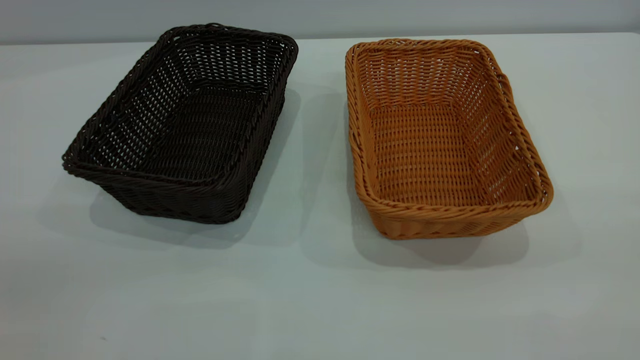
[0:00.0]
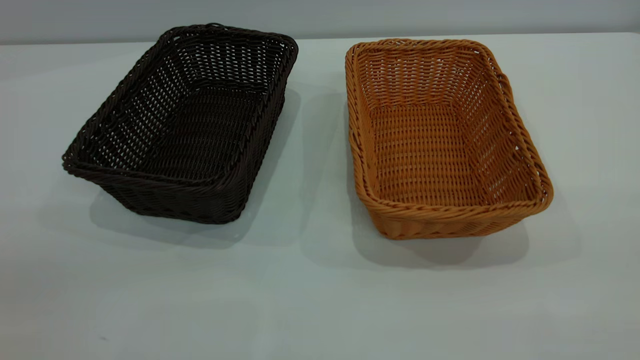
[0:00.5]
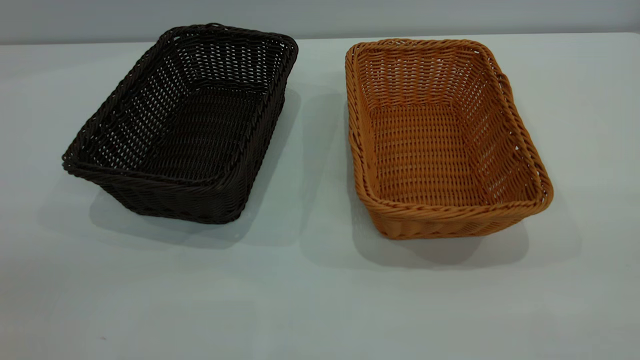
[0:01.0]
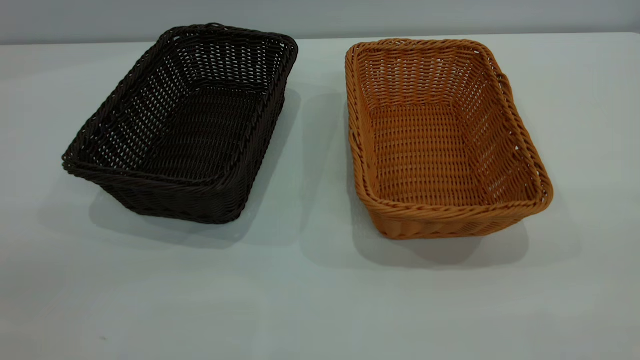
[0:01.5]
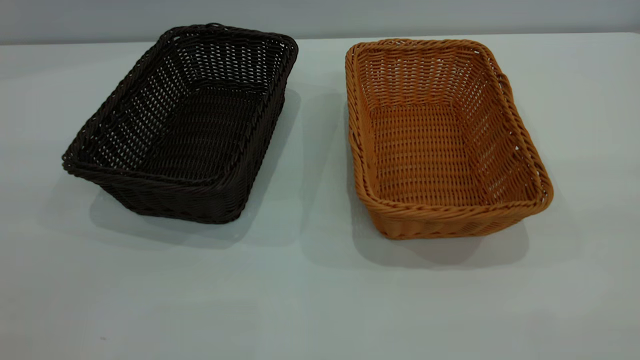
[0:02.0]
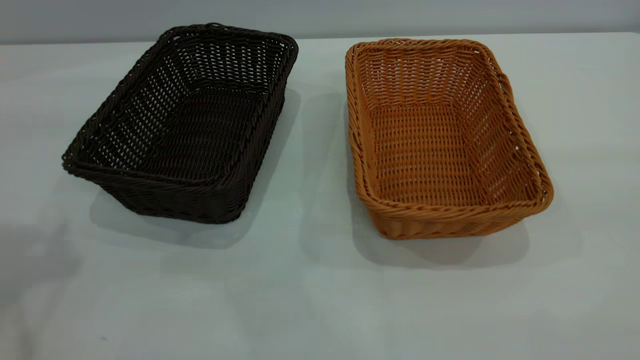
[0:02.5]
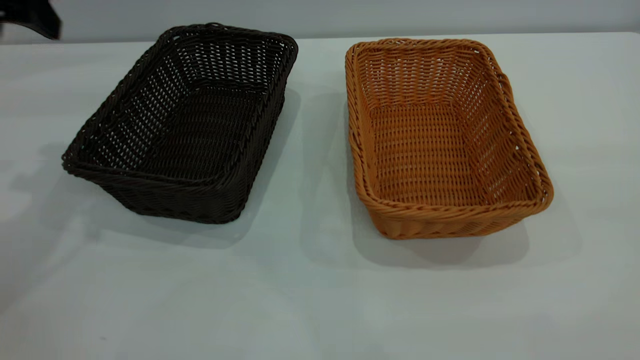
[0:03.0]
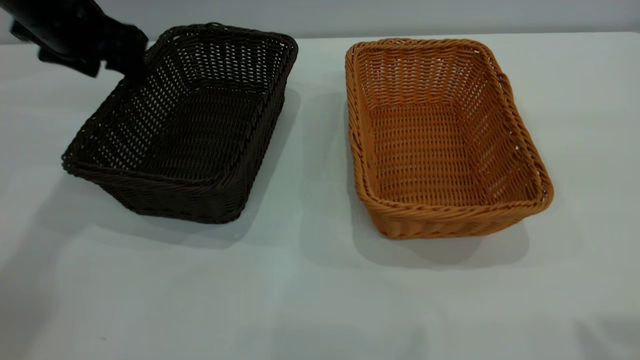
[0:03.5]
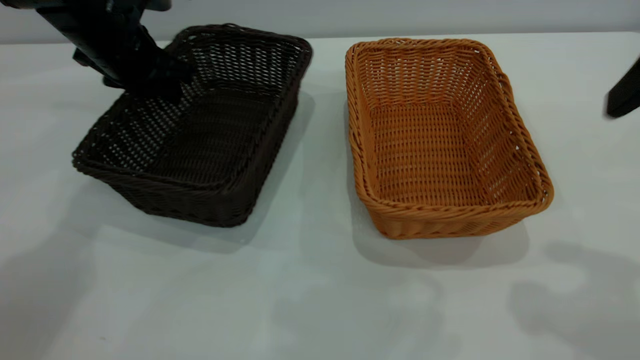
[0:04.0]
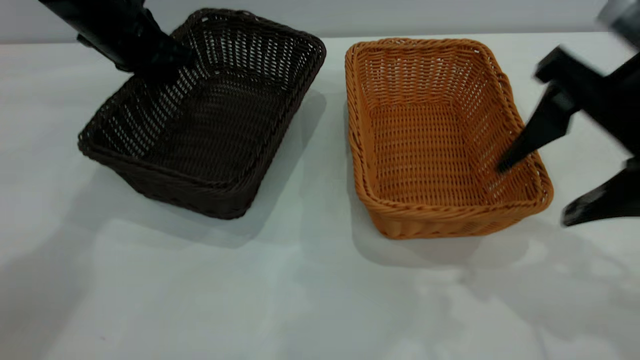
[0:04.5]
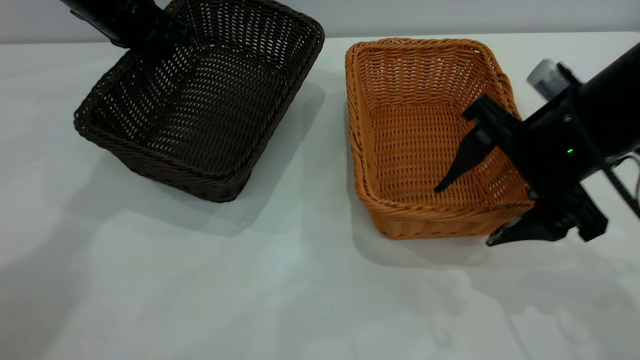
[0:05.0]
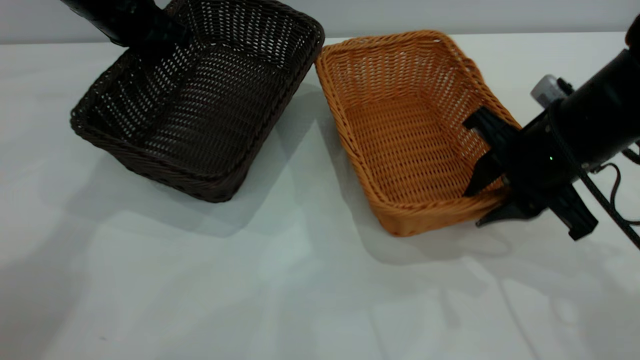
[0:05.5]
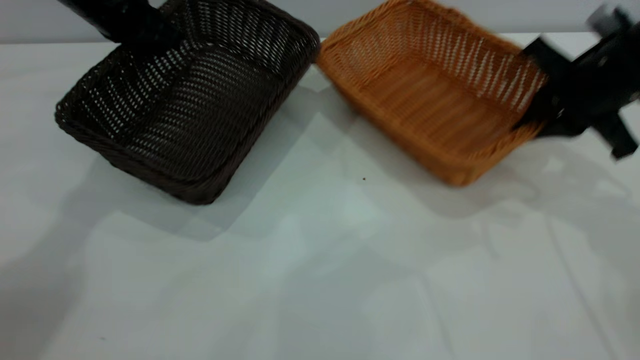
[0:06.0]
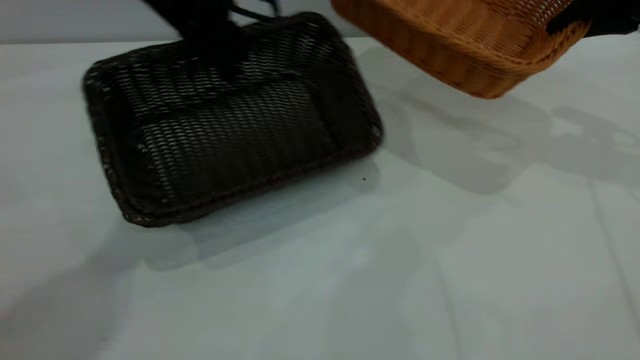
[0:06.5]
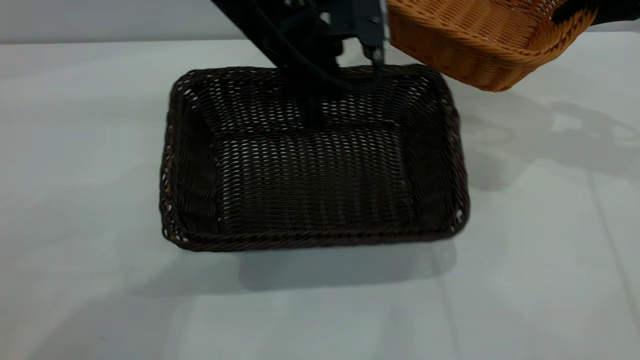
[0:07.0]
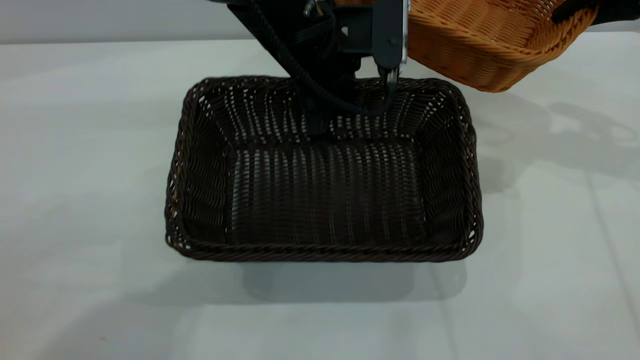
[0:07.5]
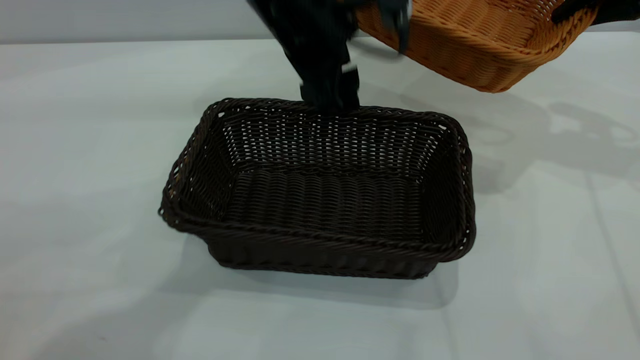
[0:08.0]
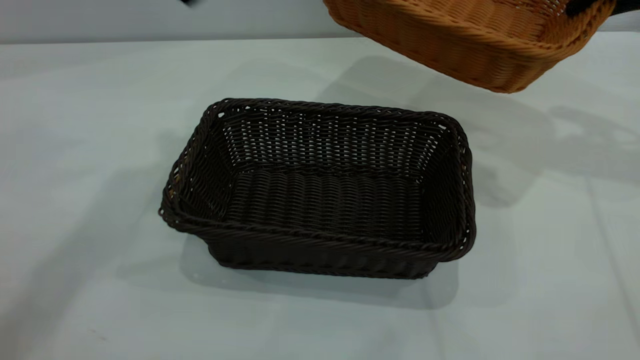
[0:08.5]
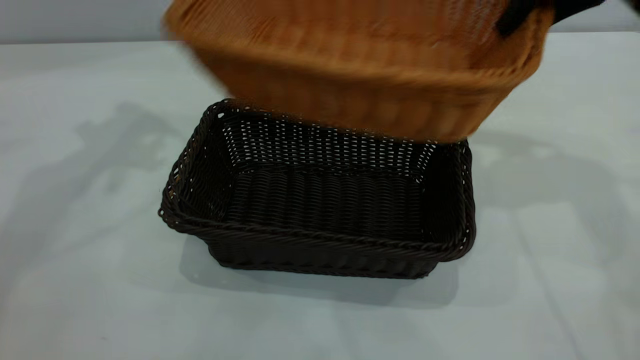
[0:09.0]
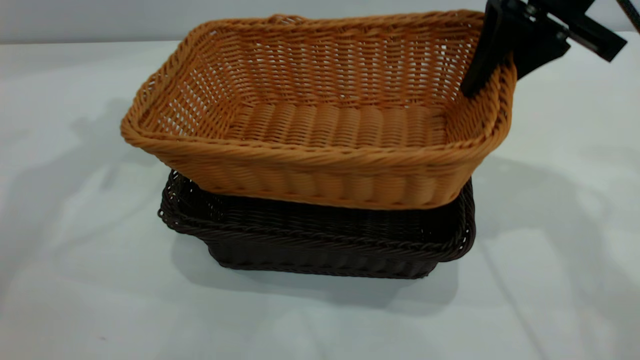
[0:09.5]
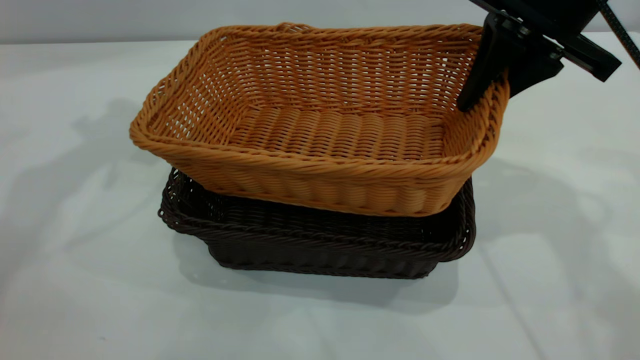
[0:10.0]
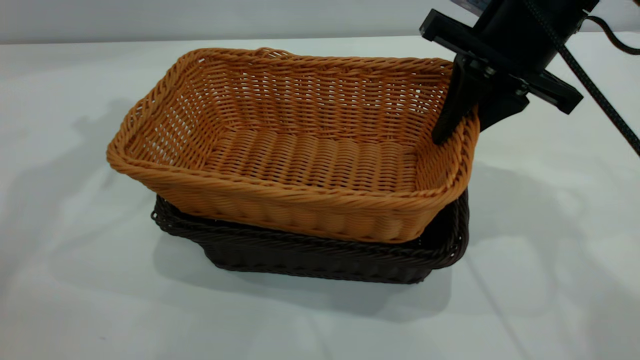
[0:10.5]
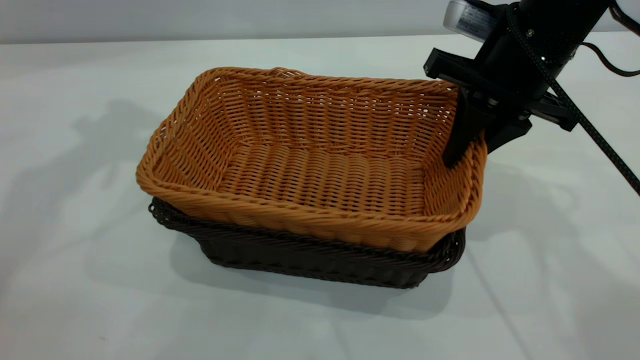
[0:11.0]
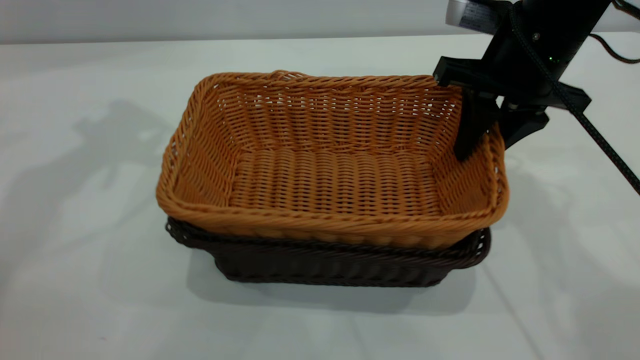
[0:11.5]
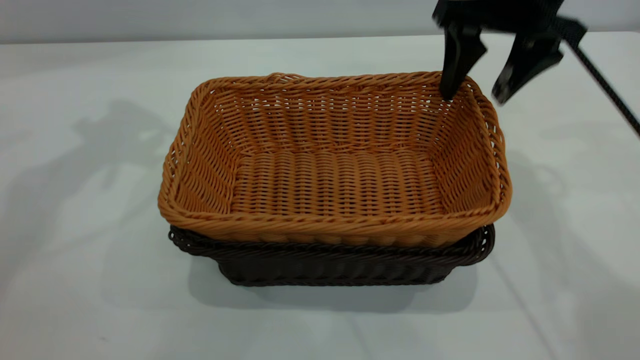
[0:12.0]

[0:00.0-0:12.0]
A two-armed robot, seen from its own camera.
Task of the whole recording: the left gripper grasp the black basket and place it in the center of the table, the right gripper grasp the brown basket and place it inside the black one.
Step, 0:00.0 to 0:06.0: Pick up the light basket with the right gripper.
Step, 0:06.5 to 0:08.0: Move the dark basket to the center of view.
Step, 0:08.5 to 0:12.0: Place the light basket on the dark basket.
0:02.0 to 0:04.0: The right gripper is displaced forward and downward by approximately 20 cm; the left gripper goes about 50 cm forward and downward, and closes its fingers.
0:04.0 to 0:06.0: The left gripper closes up; the right gripper heads forward and downward, covering about 20 cm, and closes up.
0:06.0 to 0:08.0: The right gripper moves upward and forward, roughly 10 cm; the left gripper shifts roughly 20 cm to the right and backward, and opens up.
0:08.0 to 0:10.0: The left gripper goes some 25 cm to the left and upward, while the right gripper heads to the left and backward, covering approximately 15 cm.
0:10.0 to 0:12.0: The right gripper changes place by some 5 cm, and opens its fingers.
